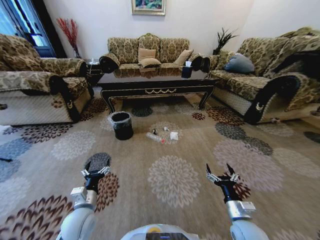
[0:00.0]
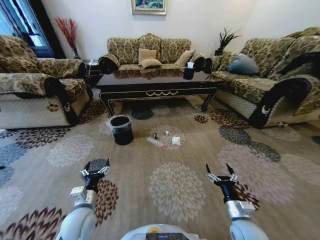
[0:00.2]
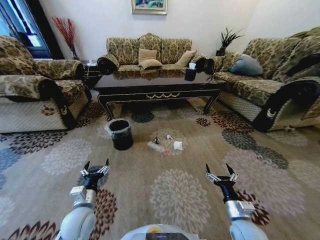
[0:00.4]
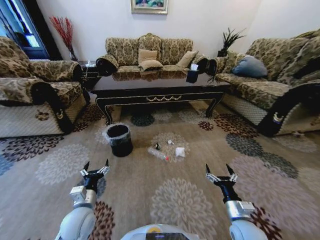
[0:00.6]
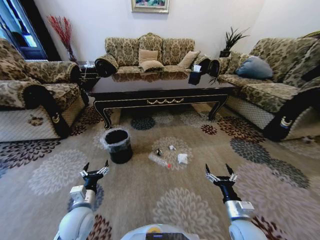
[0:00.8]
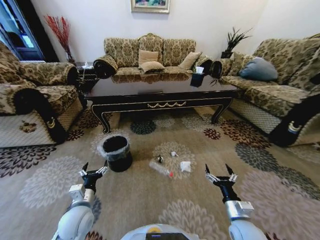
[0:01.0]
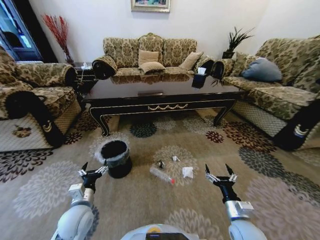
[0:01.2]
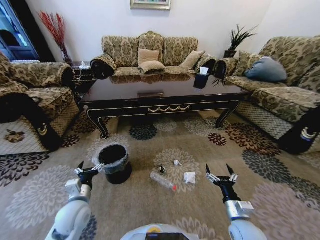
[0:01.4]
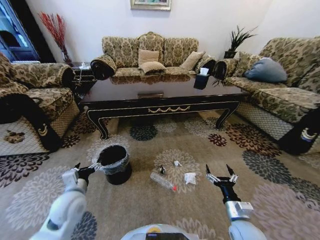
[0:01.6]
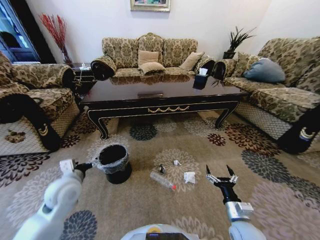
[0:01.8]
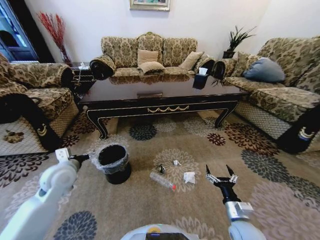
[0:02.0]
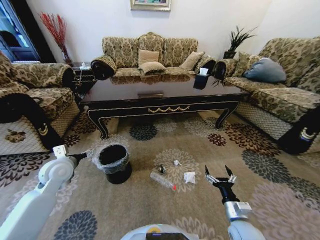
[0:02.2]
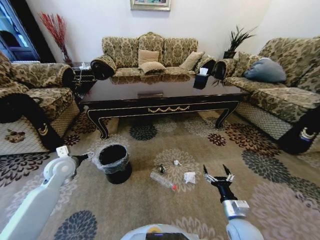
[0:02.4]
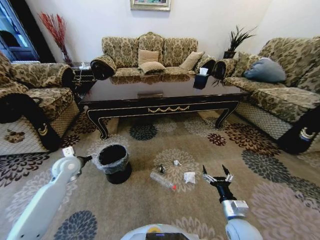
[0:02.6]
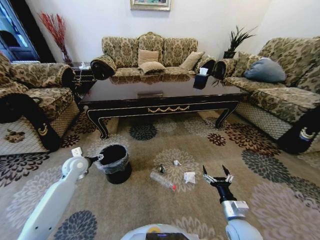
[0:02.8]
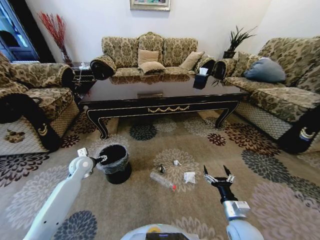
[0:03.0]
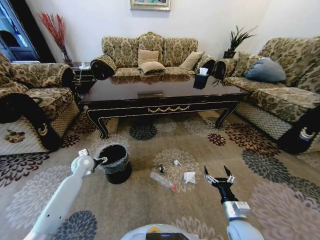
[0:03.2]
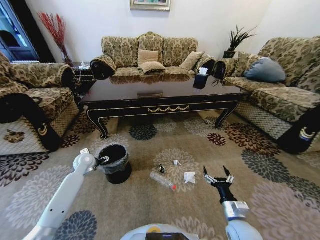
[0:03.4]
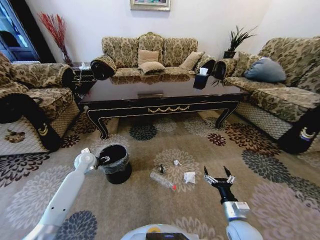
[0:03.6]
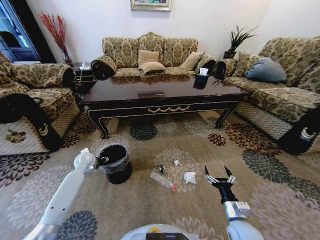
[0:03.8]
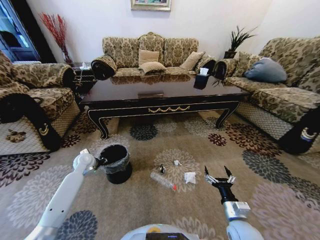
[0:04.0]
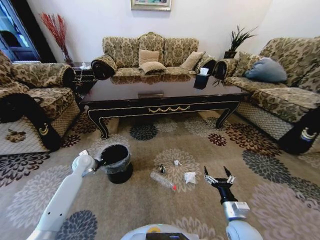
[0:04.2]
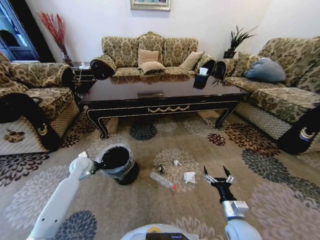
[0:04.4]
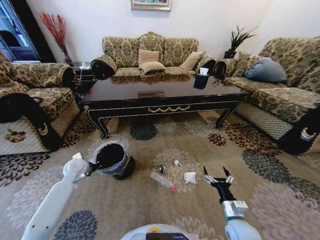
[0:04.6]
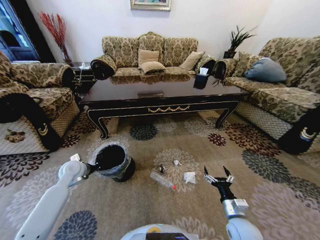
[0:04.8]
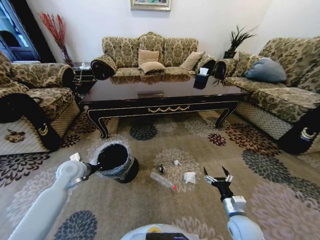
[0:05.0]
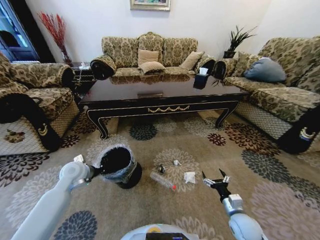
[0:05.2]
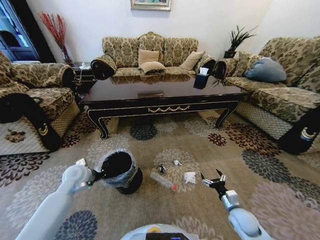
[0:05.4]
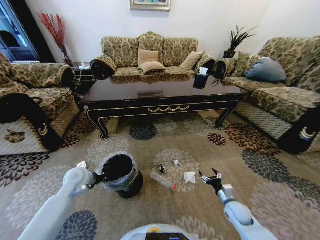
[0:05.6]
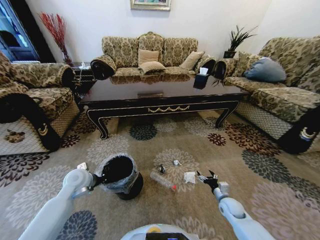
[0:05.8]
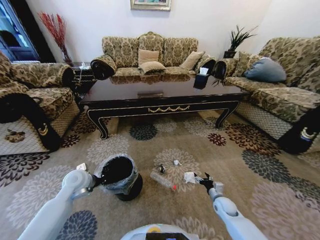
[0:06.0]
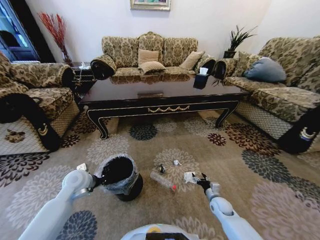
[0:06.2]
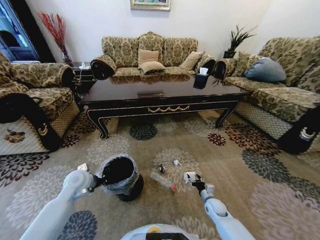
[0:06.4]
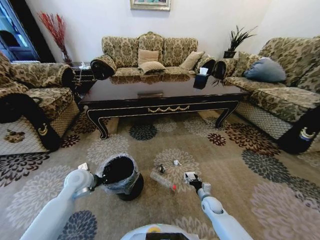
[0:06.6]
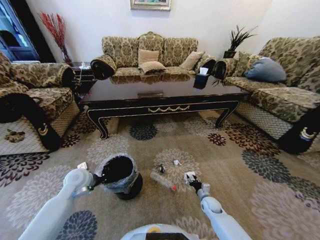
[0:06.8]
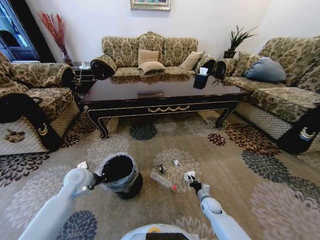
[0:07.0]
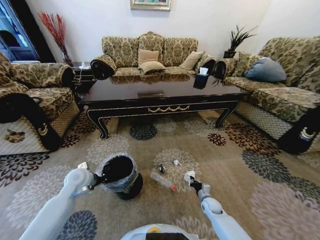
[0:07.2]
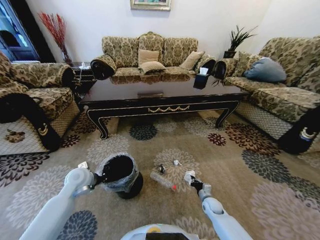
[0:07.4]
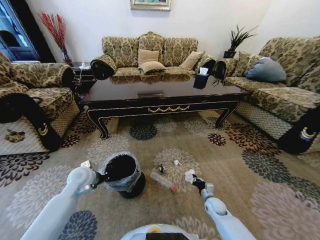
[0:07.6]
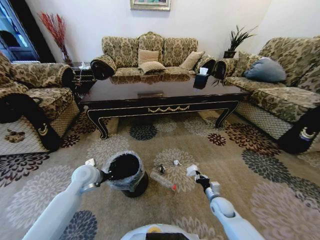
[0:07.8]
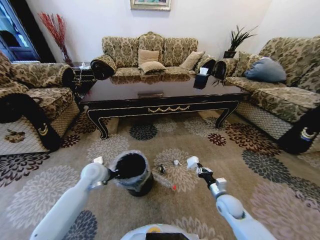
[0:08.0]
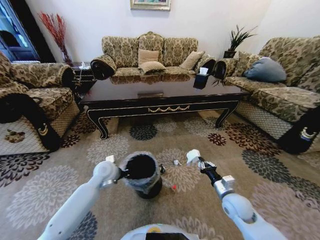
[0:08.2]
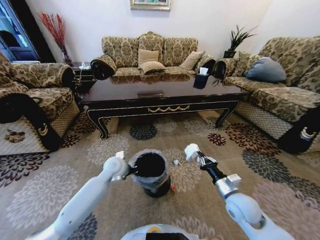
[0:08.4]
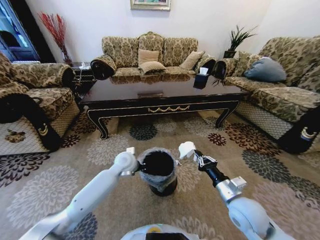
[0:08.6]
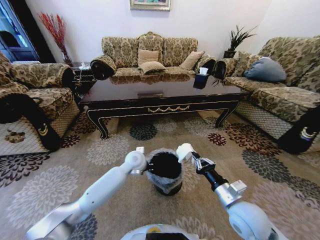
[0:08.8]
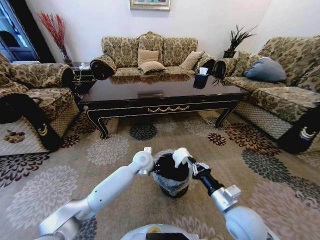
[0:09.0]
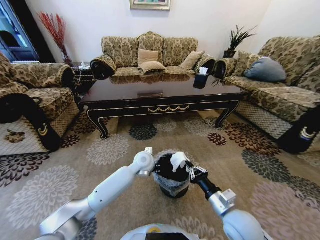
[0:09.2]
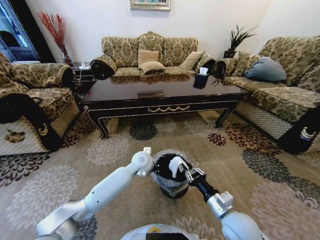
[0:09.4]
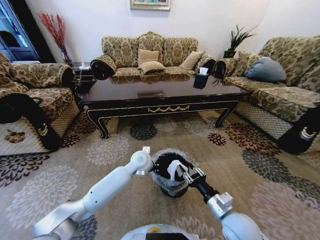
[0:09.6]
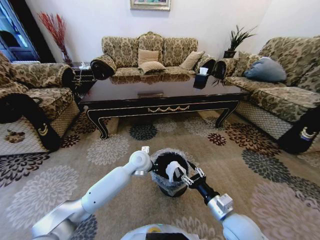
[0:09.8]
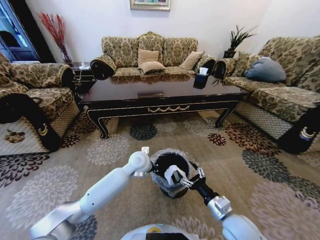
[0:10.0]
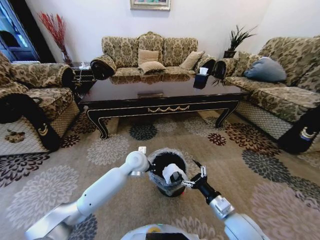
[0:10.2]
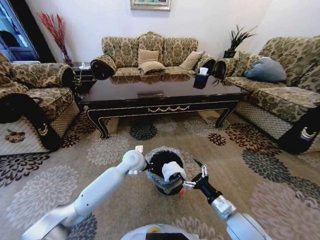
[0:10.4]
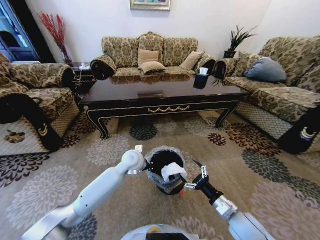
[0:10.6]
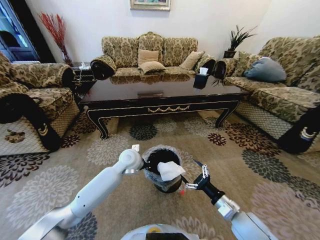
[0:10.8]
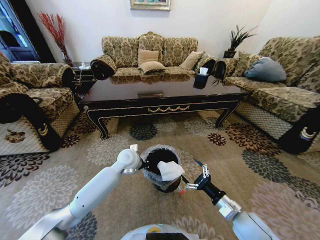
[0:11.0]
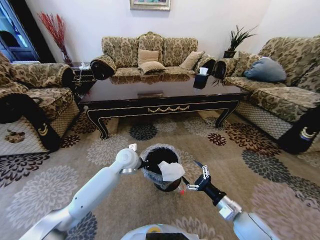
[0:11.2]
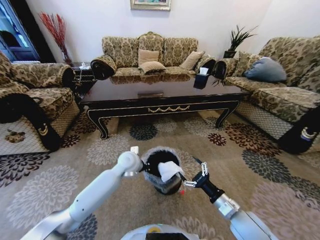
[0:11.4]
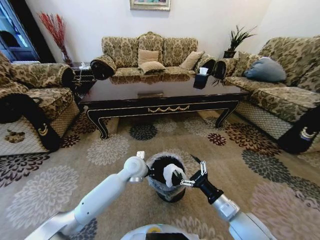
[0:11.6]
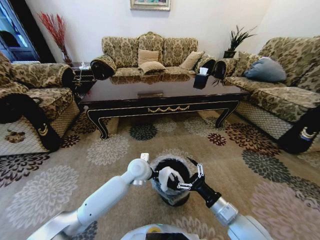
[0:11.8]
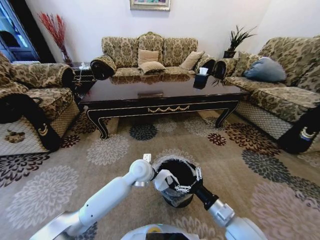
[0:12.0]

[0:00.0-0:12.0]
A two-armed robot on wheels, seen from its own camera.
Task of the whole recording: Move to the front of the table and pick up the trash from the floor, then place it into the trash bin.
0:00.0 to 0:01.6: The left gripper moves upward, about 5 cm.
0:01.6 to 0:03.0: The left gripper shifts roughly 15 cm forward.
0:03.0 to 0:04.4: The left gripper closes its fingers.
0:04.4 to 0:06.0: The right gripper shifts some 15 cm downward, forward and to the right. The left gripper heads backward, covering about 10 cm.
0:06.0 to 0:07.6: The right gripper changes place by about 5 cm, and closes up.
0:07.6 to 0:09.0: The right gripper is displaced upward by about 25 cm. The left gripper goes roughly 25 cm to the right.
0:09.0 to 0:10.4: The right gripper opens up.
0:10.4 to 0:12.0: The left gripper moves some 5 cm.

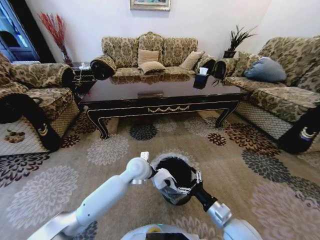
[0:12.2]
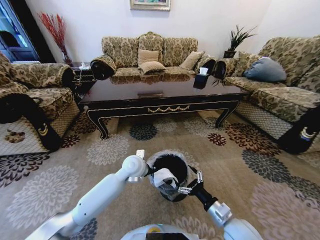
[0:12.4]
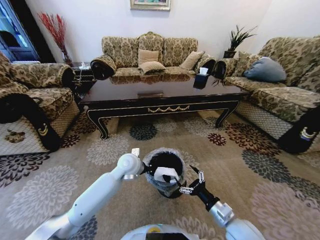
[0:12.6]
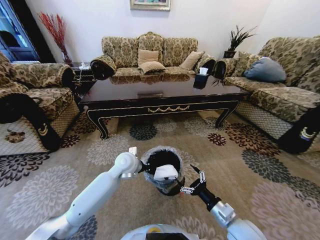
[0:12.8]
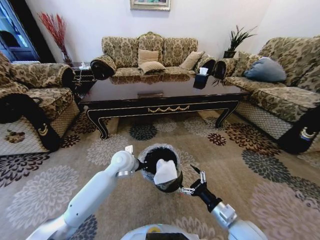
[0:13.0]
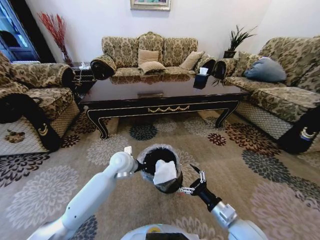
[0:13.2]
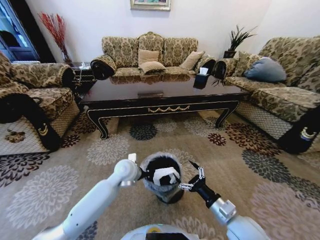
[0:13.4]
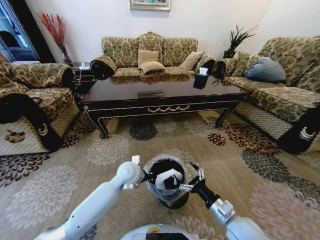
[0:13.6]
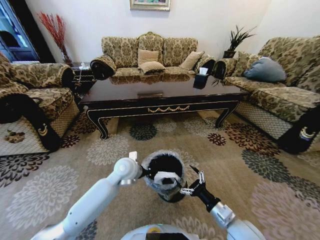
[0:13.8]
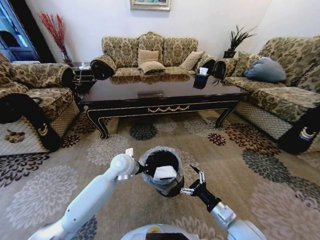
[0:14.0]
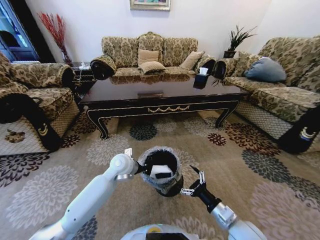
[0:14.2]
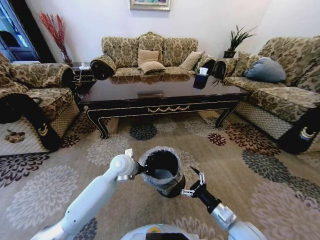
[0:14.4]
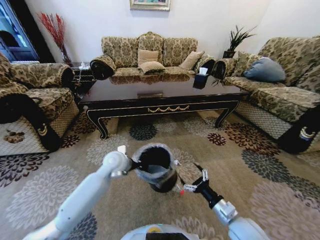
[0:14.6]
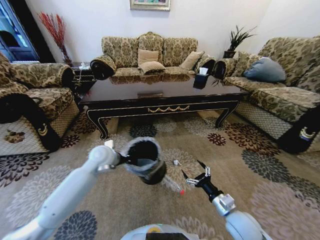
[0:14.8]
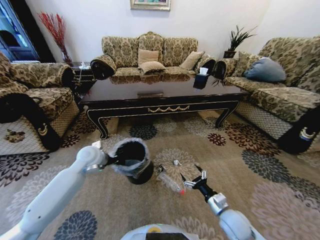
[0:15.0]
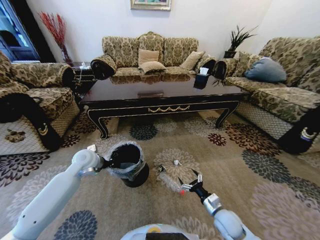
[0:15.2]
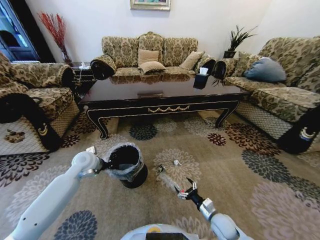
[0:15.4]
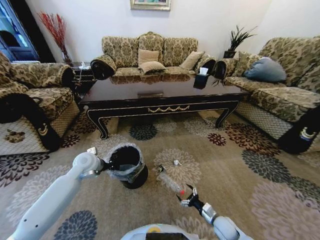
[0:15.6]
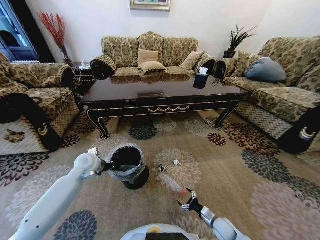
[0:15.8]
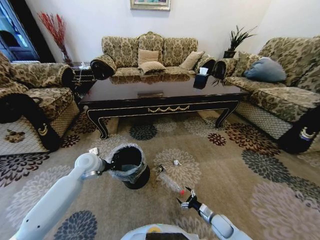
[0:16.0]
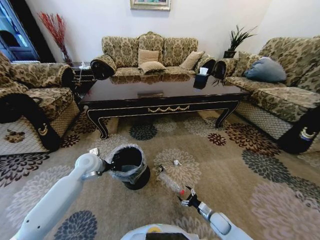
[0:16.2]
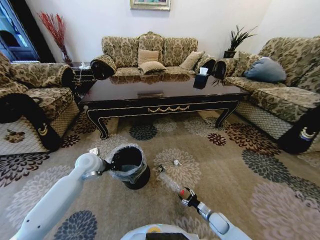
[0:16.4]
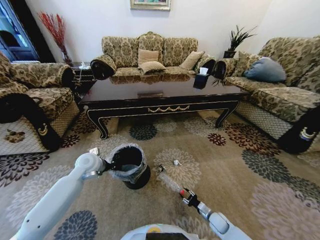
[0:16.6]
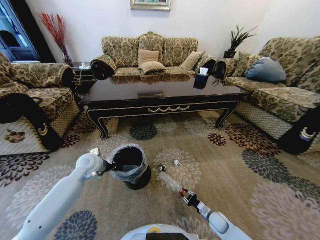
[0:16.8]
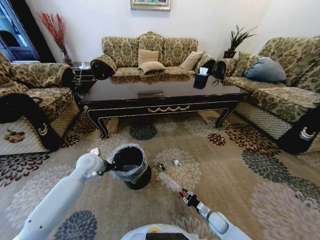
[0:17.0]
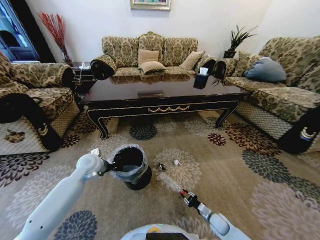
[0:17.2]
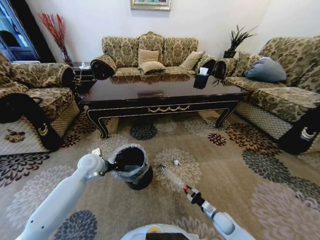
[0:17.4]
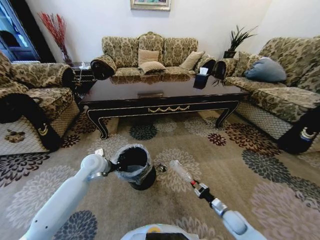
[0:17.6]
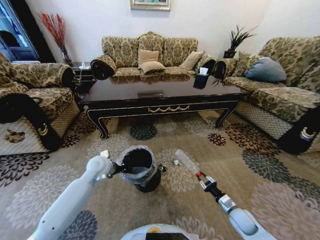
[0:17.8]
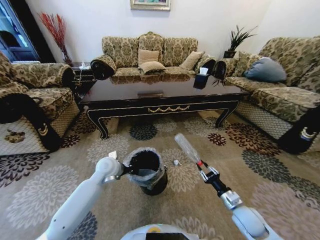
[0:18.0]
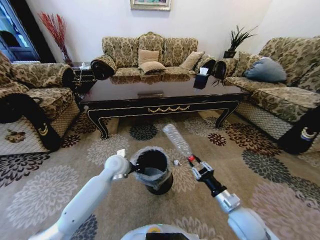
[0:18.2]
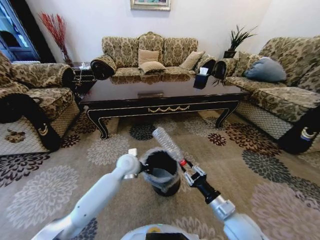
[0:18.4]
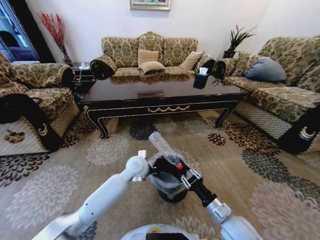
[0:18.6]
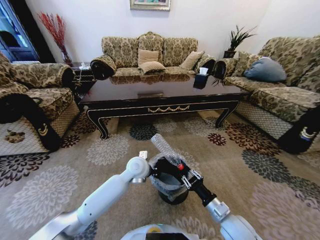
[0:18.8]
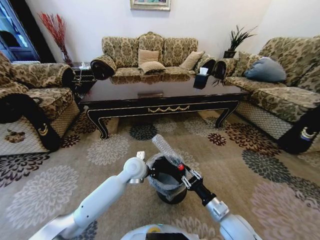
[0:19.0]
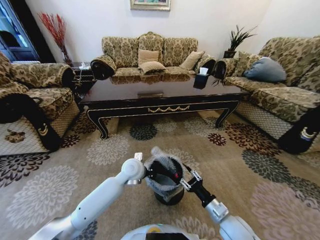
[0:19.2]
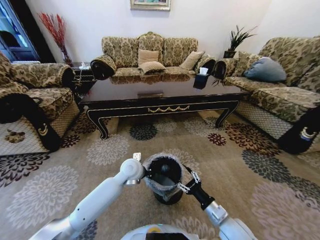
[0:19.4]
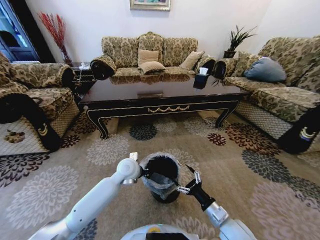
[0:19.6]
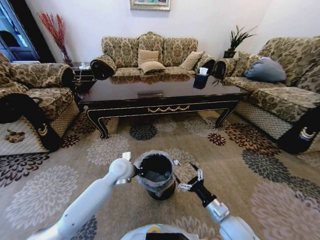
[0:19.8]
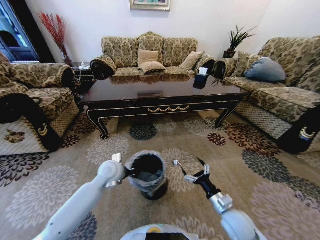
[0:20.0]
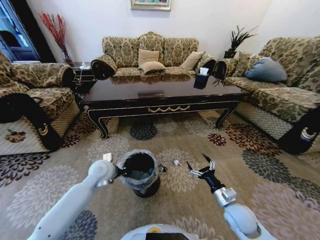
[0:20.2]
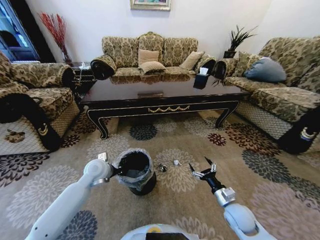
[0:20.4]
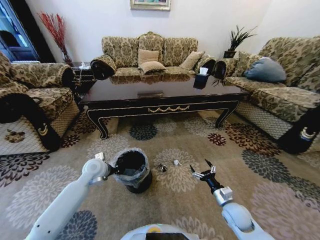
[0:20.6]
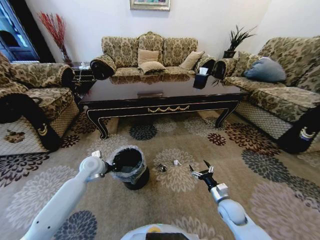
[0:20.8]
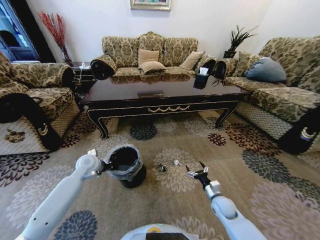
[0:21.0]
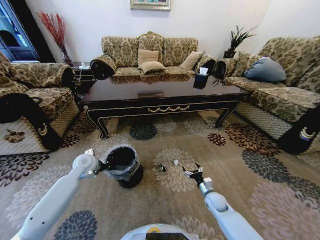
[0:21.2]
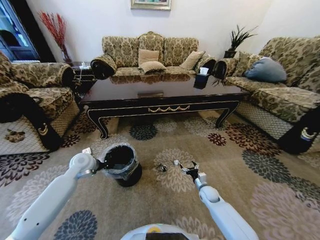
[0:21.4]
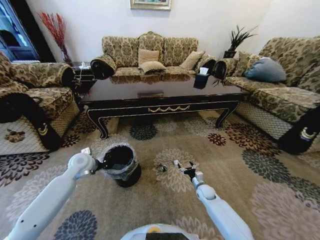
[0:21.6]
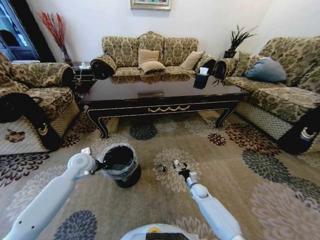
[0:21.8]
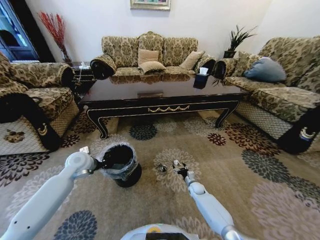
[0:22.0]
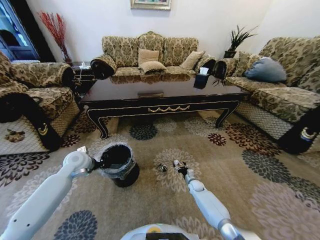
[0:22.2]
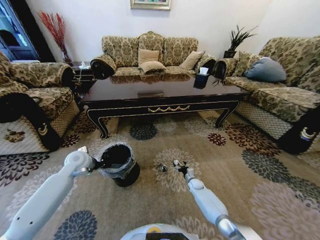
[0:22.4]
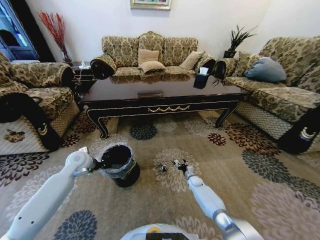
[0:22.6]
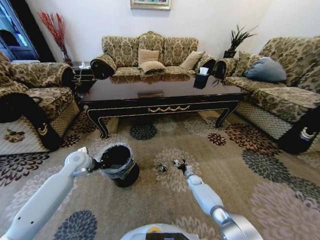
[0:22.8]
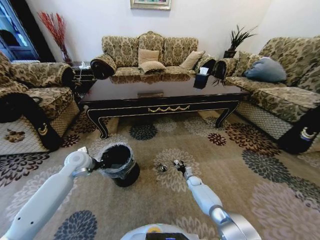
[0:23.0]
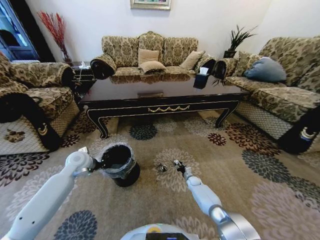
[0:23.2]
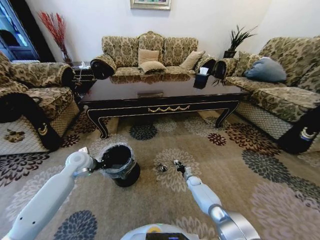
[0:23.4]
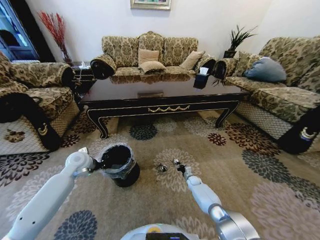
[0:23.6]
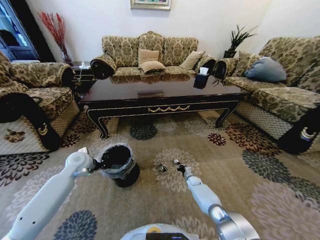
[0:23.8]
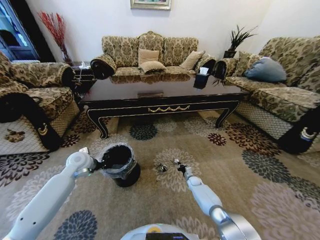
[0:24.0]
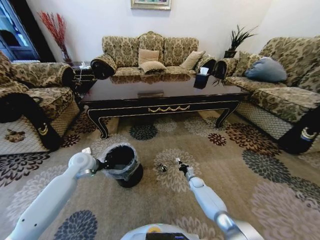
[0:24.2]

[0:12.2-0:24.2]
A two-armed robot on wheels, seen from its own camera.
Task of the whole recording: Move to the front of the table and pick up the trash from the floor, then place it into the trash bin.
0:13.8 to 0:15.2: The left gripper heads to the left, covering some 20 cm. Meanwhile the right gripper moves downward and forward, some 10 cm.
0:15.2 to 0:16.6: The right gripper goes about 15 cm downward, and closes up.
0:16.6 to 0:18.2: The left gripper travels to the right by about 10 cm. The right gripper travels upward by about 25 cm.
0:18.2 to 0:19.8: The left gripper reaches about 10 cm to the right, then returns. The right gripper changes place by approximately 5 cm, and opens.
0:19.8 to 0:21.2: The right gripper shifts about 20 cm downward and forward. The left gripper travels to the left by roughly 15 cm.
0:21.2 to 0:22.6: The right gripper goes approximately 15 cm forward and downward.
0:22.6 to 0:24.2: The right gripper closes its fingers.
